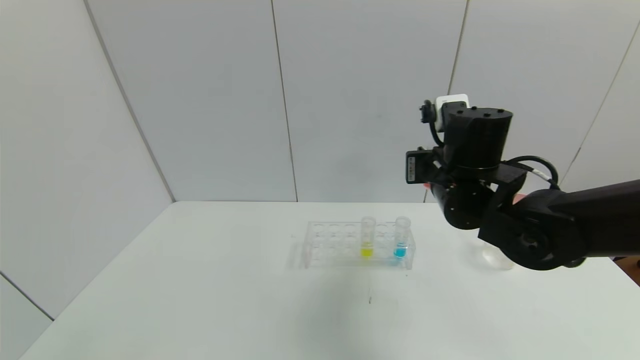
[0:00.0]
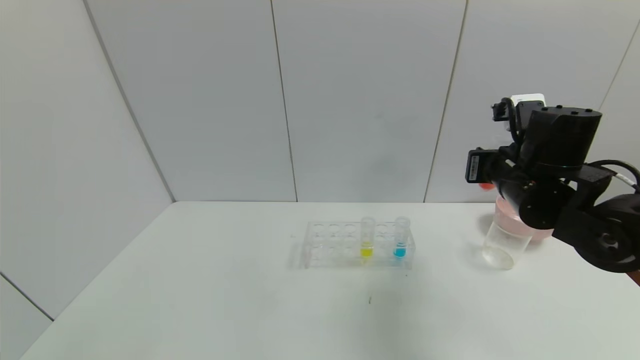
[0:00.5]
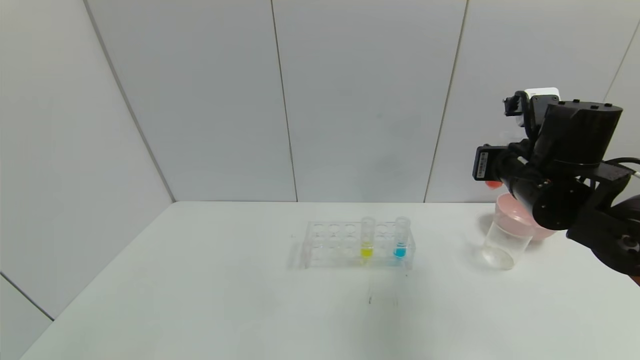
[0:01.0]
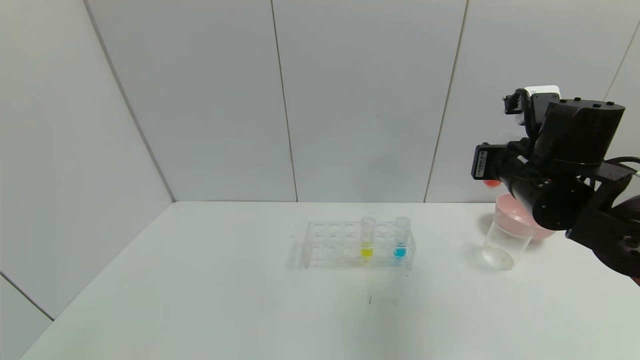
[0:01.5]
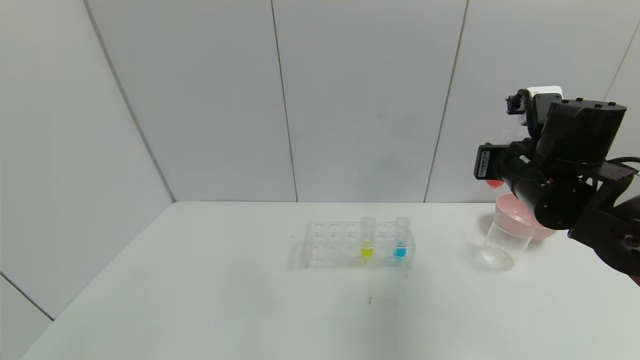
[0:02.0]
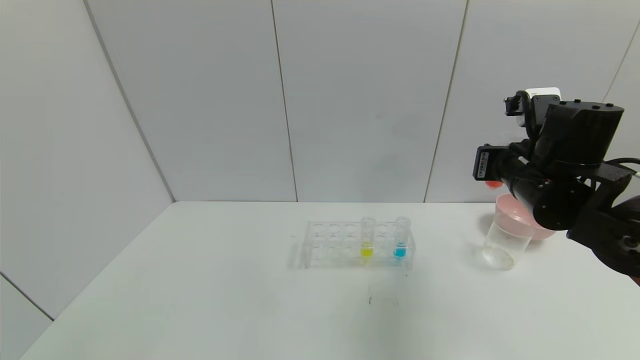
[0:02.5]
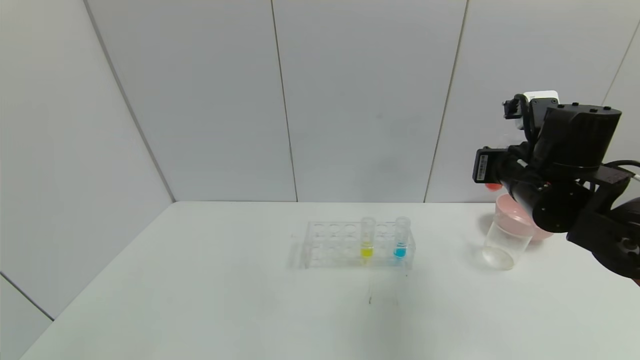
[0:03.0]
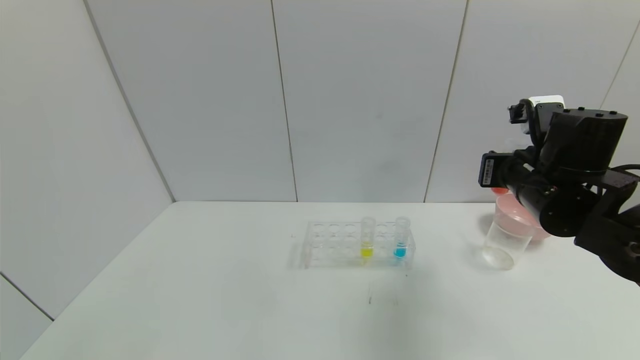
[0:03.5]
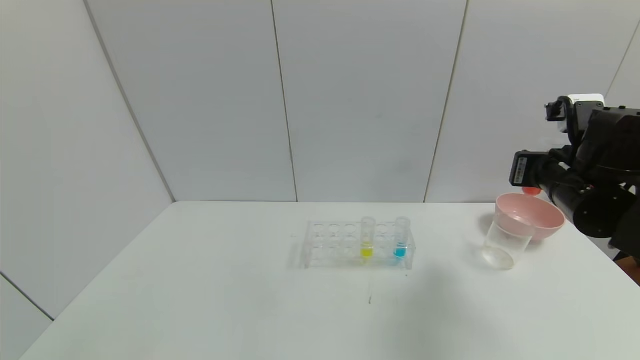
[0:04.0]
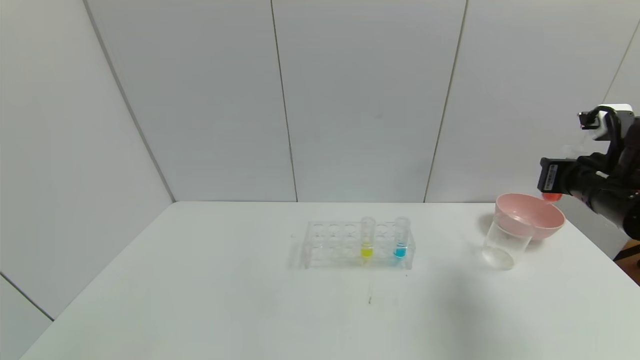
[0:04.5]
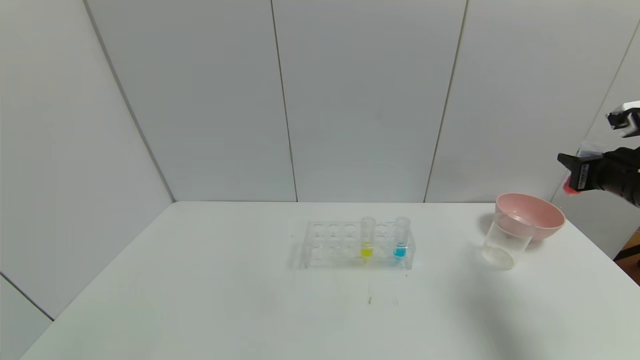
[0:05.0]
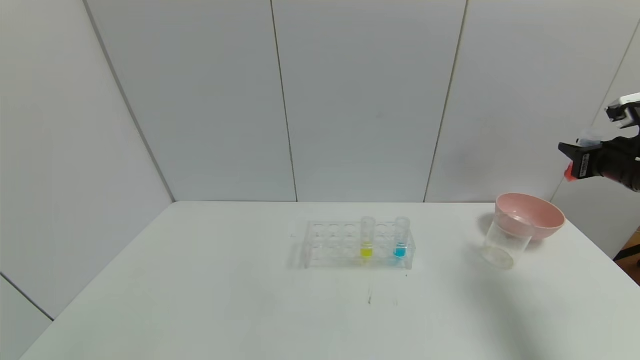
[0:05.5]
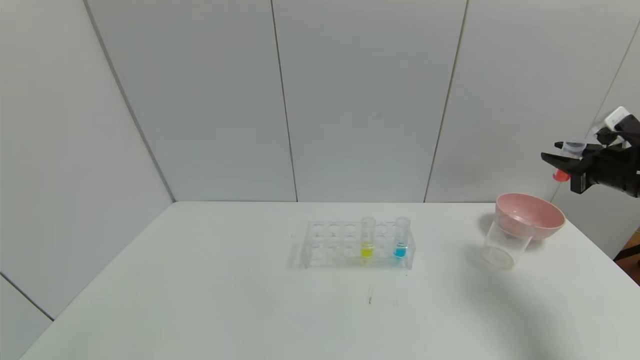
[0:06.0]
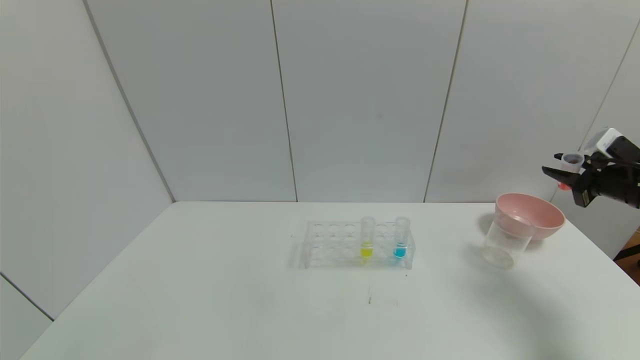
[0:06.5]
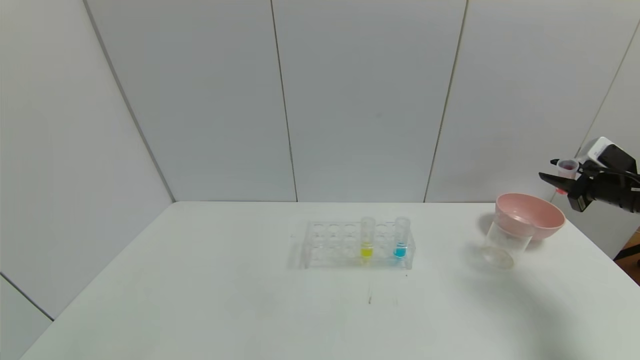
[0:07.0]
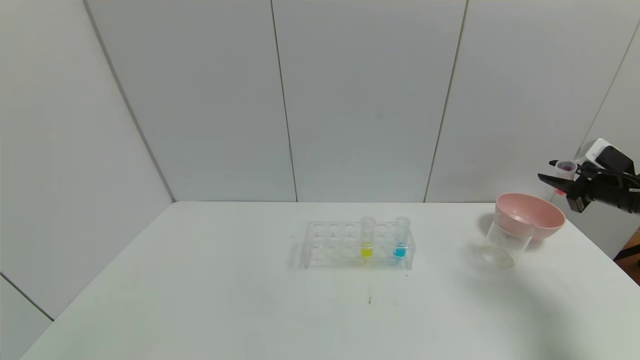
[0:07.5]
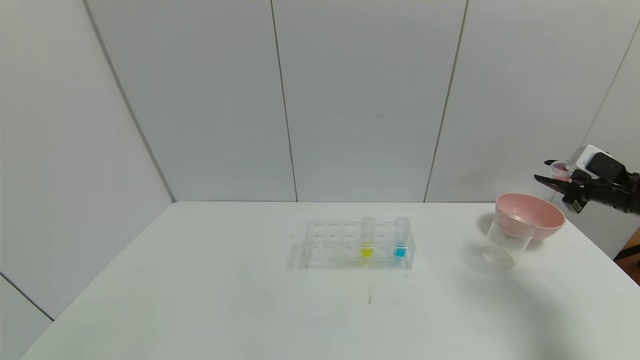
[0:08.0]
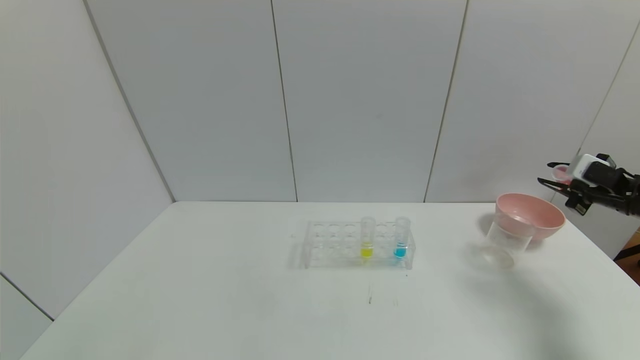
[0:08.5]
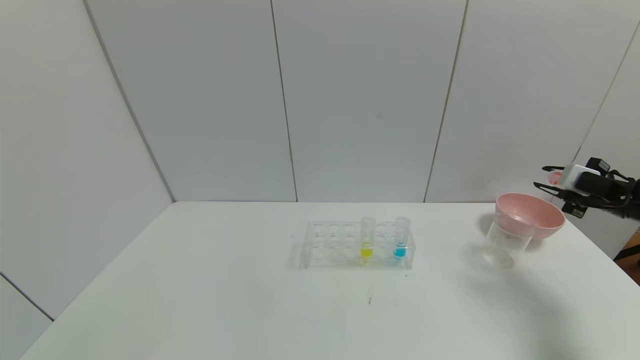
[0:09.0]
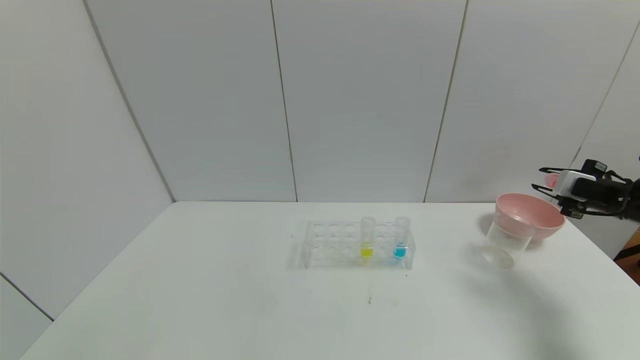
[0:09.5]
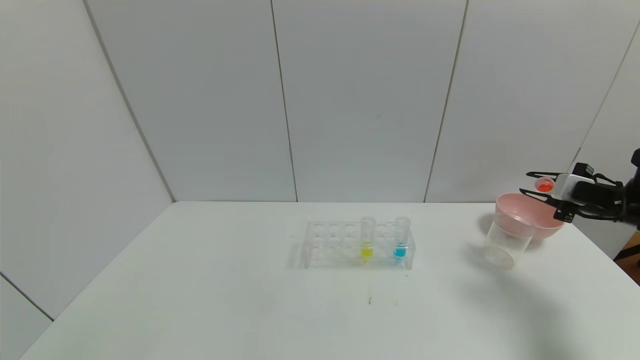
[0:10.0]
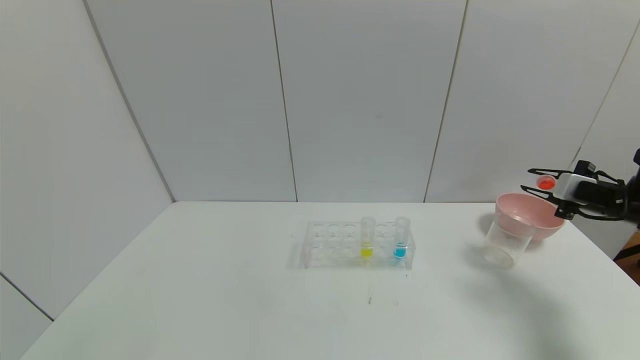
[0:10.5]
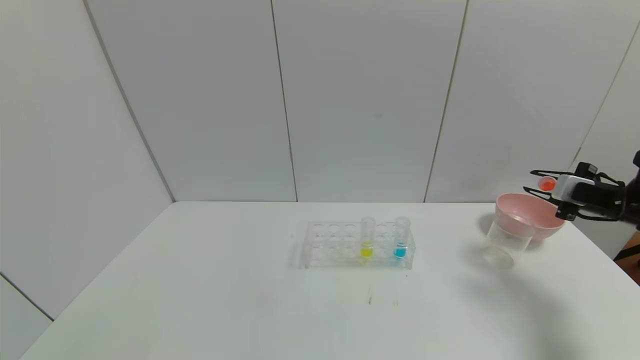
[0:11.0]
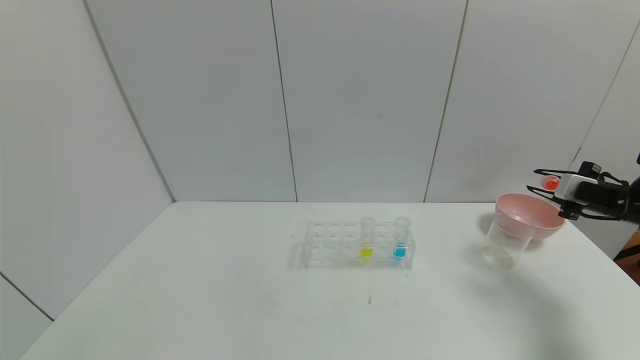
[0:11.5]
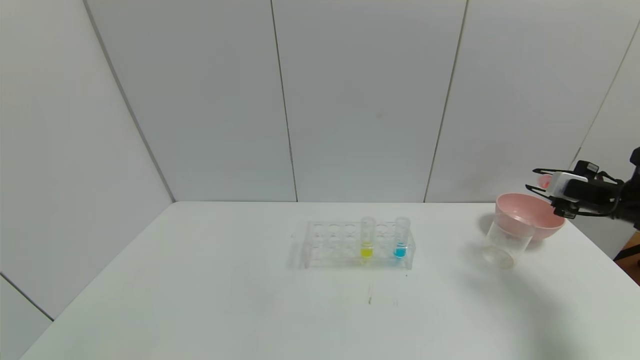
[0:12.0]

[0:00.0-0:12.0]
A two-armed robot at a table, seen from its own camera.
Task of the whole recording: pick up the test tube with yellow pigment and the test tube with red pigment by grippers and pour them into the beaker.
Step, 0.0 to 5.5 s: Pick up the test tube containing the red reagent with right gripper.
0.0 to 2.0 s: The right gripper moves to the right, about 10 cm.
2.0 to 4.0 s: The right gripper changes place by about 5 cm.
4.0 to 6.0 s: The right gripper shifts roughly 15 cm to the right.
8.0 to 12.0 s: There are only small adjustments of the grippers.

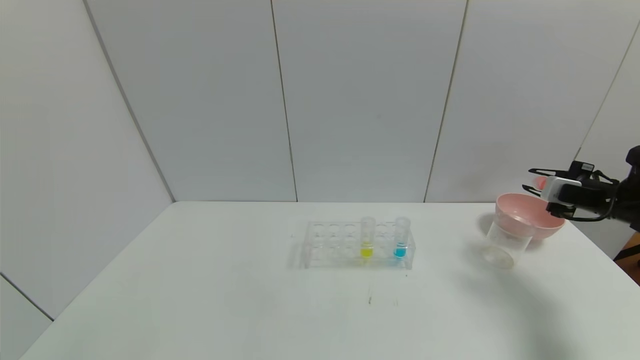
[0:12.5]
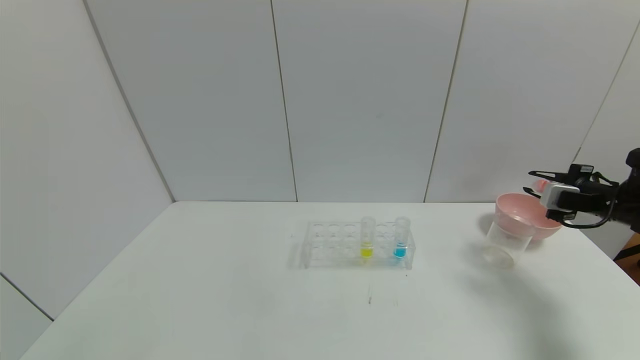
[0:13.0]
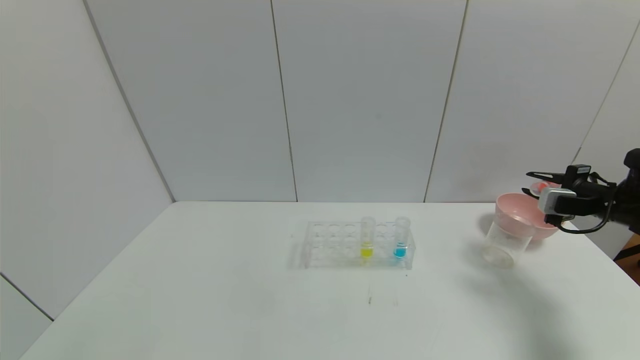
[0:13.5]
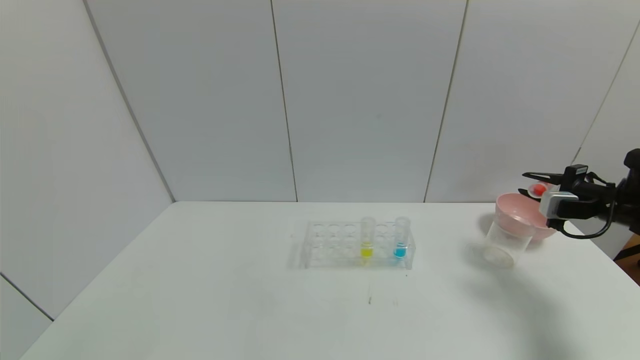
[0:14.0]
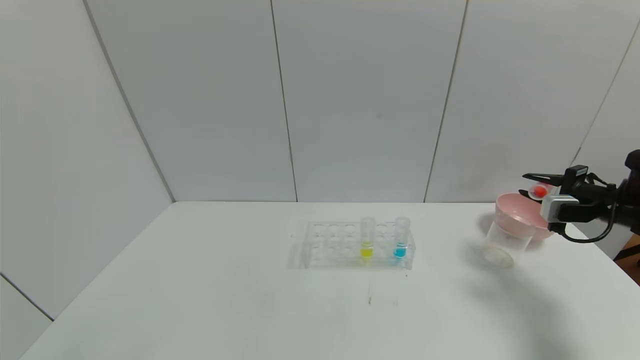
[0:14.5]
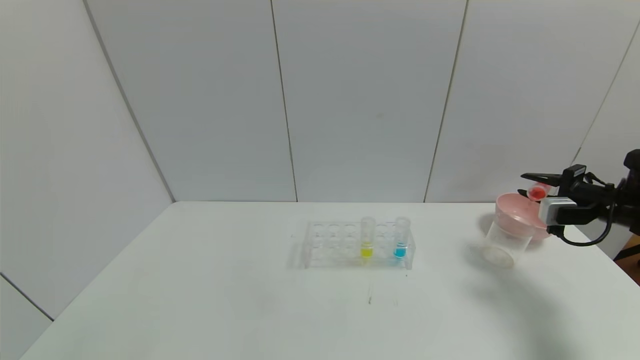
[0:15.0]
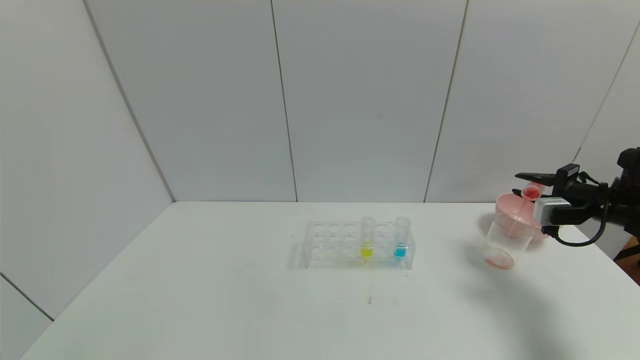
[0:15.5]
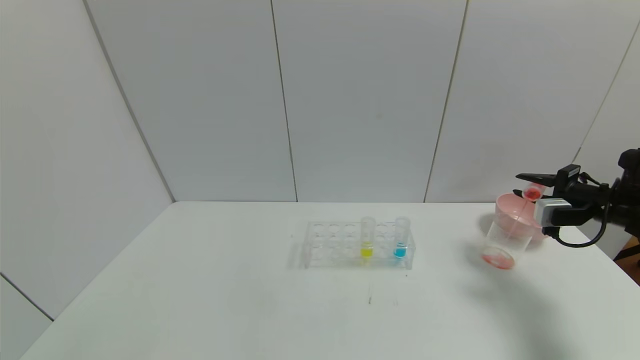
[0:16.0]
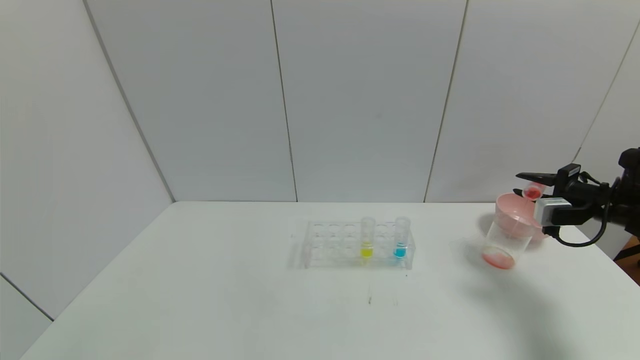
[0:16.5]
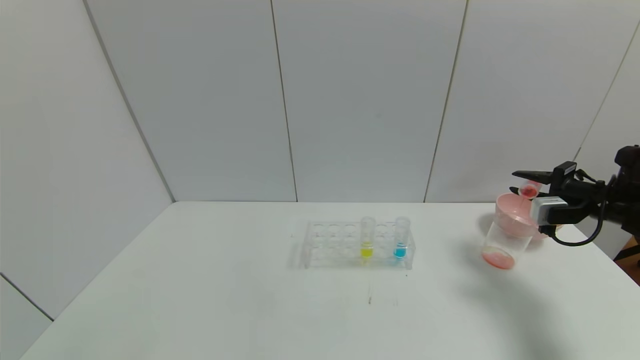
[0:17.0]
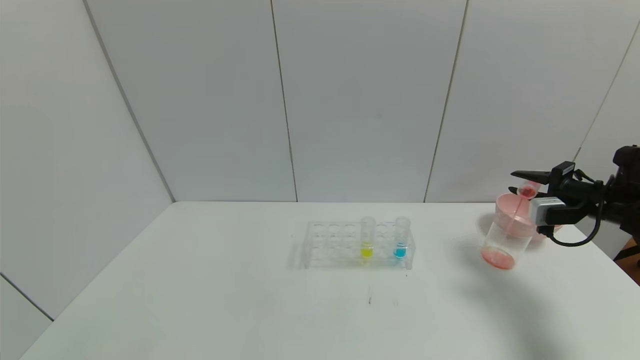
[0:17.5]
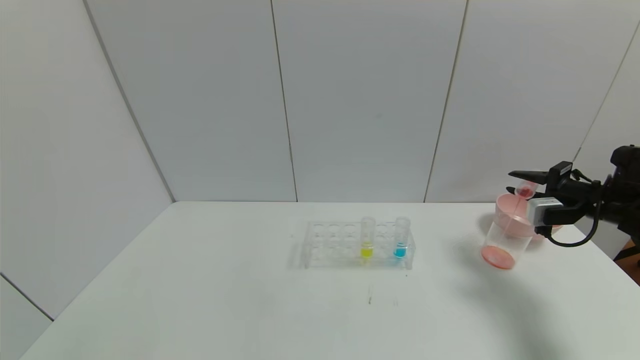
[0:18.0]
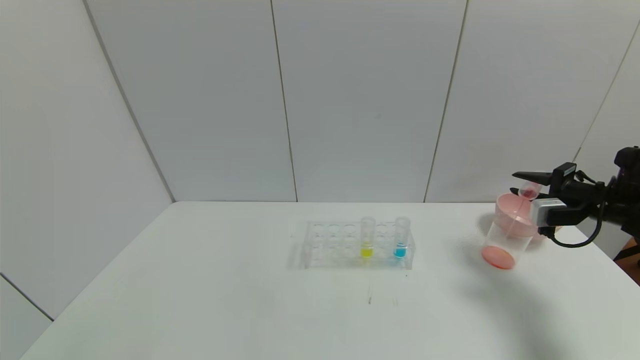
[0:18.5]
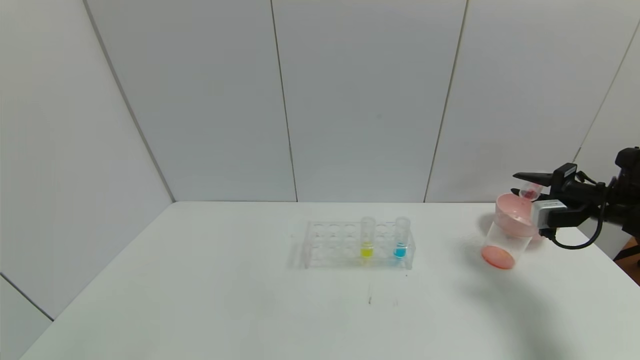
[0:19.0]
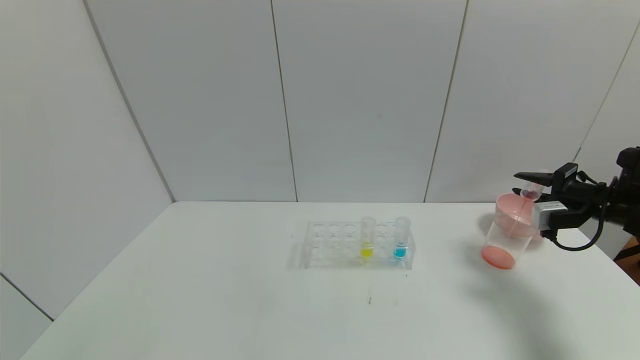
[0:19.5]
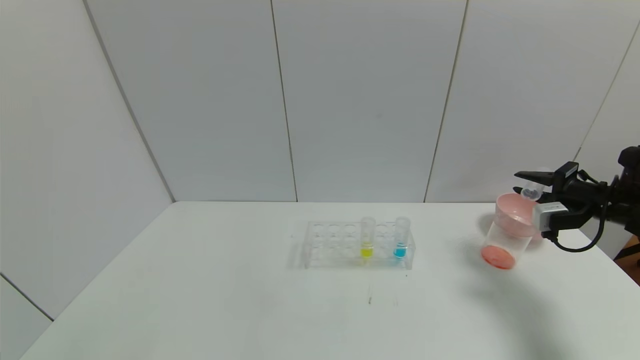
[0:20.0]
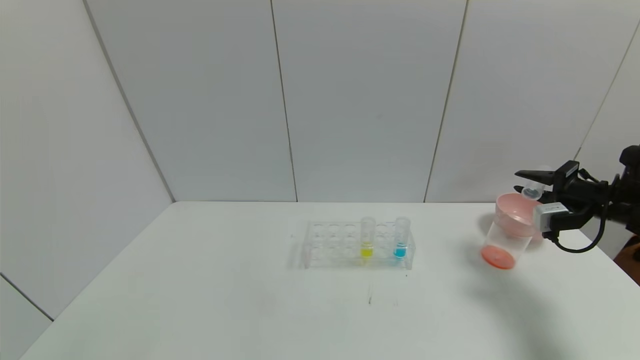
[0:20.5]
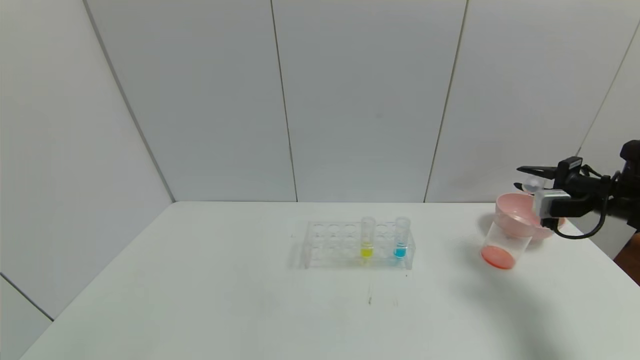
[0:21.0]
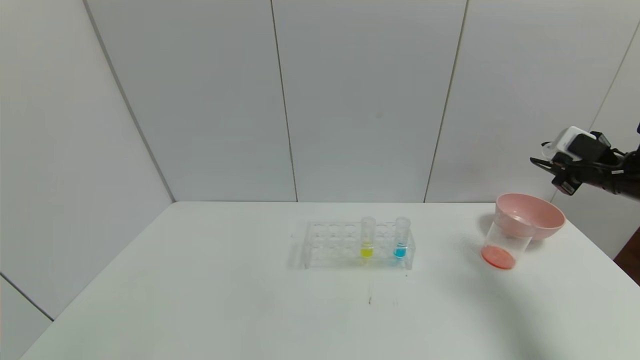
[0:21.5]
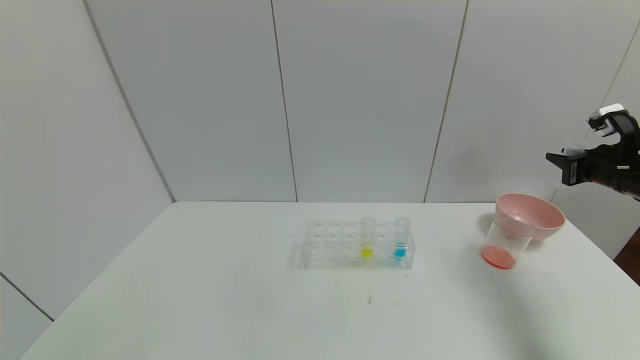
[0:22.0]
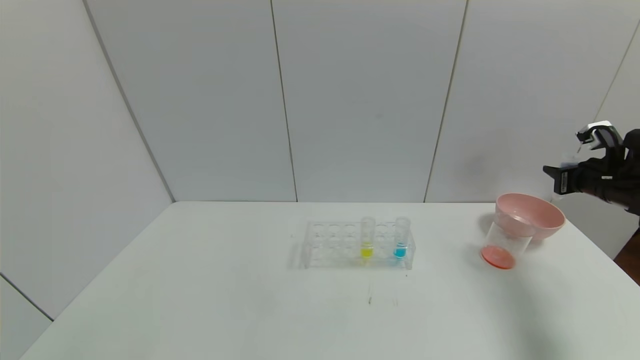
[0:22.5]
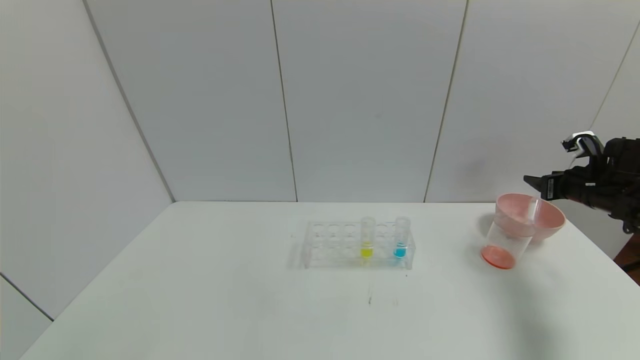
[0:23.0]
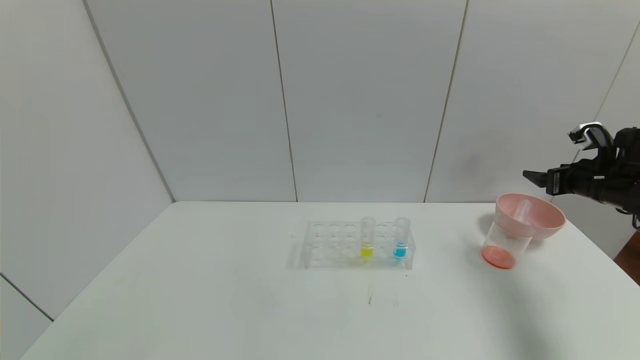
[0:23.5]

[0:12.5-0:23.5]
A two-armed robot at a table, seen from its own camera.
Task of the whole recording: pick up the test tube with yellow pigment and the test tube with red pigment by grippers and pour them into the beaker.
Step, 12.5 to 21.5 s: Pour the red reagent into the graduated cylinder with right gripper.
12.5 to 14.5 s: The grippers move only a little.
14.5 to 20.0 s: The grippers move only a little.
20.0 to 21.5 s: The right gripper heads upward, covering about 5 cm.
21.5 to 23.5 s: The right gripper opens up.
